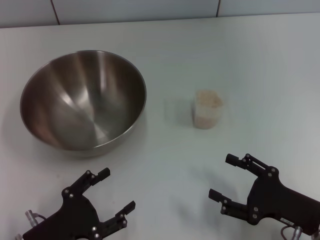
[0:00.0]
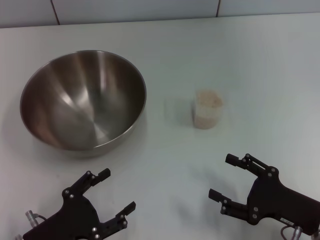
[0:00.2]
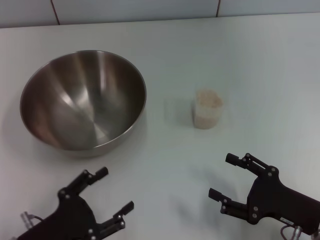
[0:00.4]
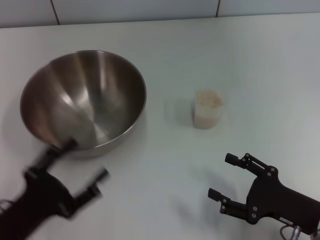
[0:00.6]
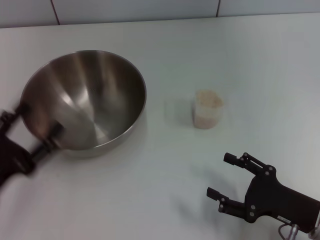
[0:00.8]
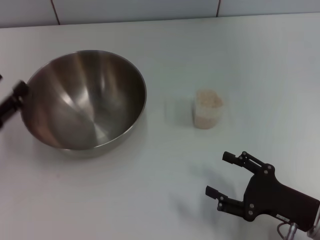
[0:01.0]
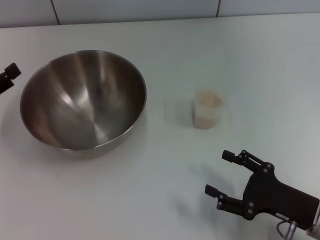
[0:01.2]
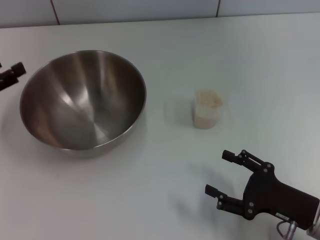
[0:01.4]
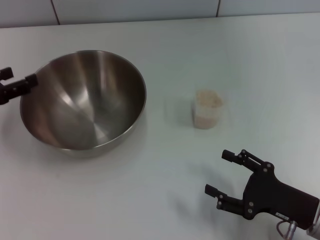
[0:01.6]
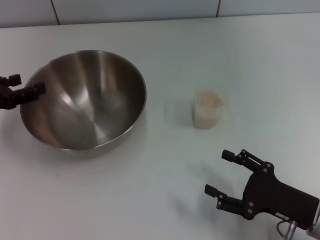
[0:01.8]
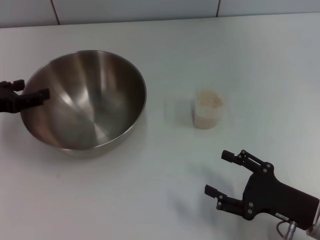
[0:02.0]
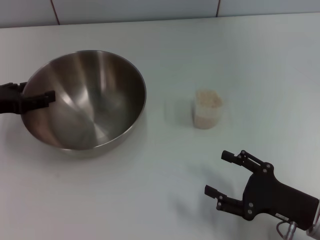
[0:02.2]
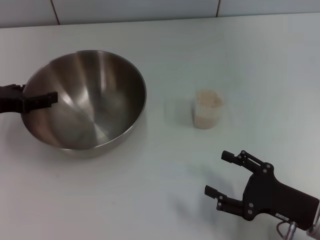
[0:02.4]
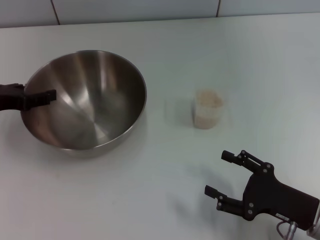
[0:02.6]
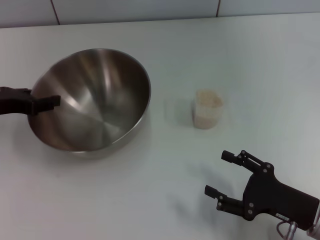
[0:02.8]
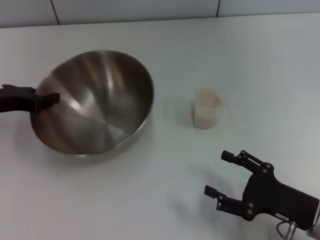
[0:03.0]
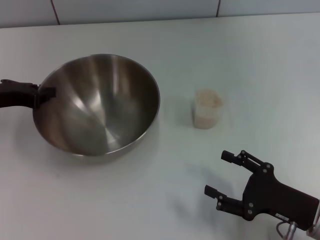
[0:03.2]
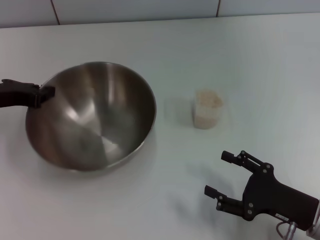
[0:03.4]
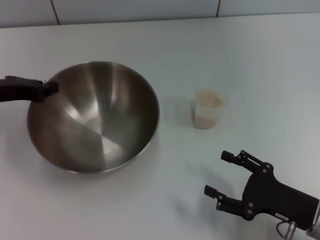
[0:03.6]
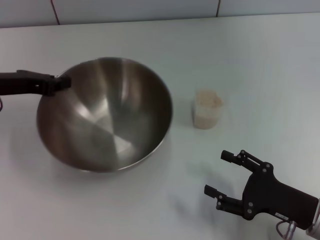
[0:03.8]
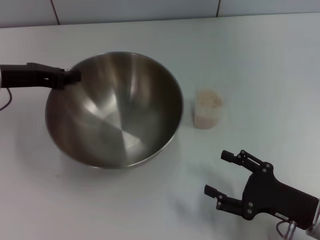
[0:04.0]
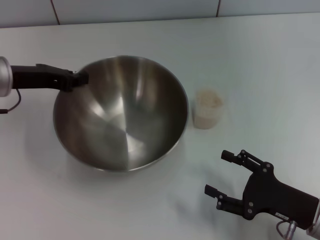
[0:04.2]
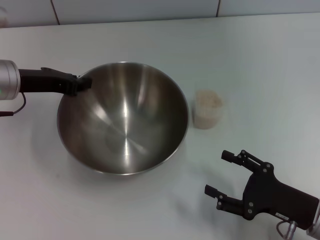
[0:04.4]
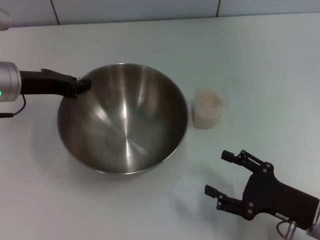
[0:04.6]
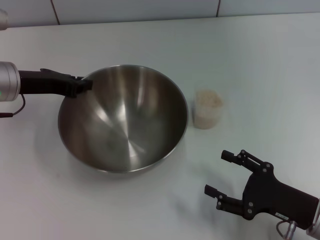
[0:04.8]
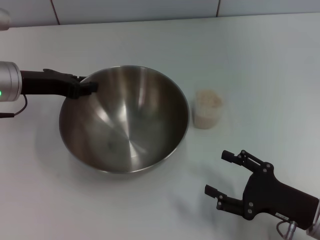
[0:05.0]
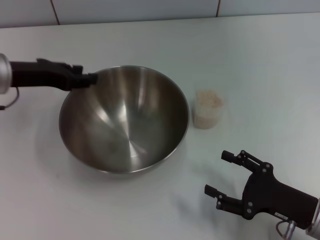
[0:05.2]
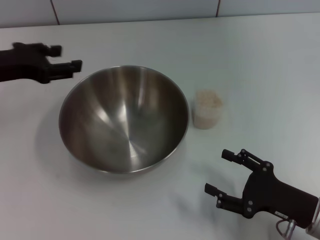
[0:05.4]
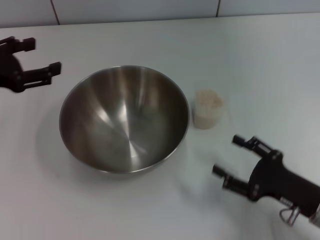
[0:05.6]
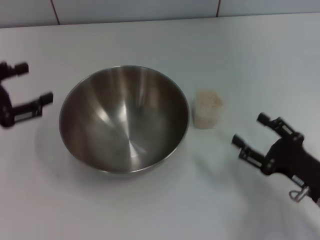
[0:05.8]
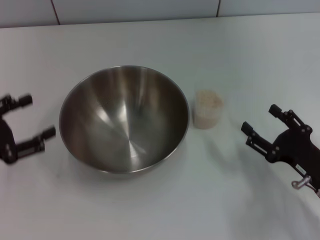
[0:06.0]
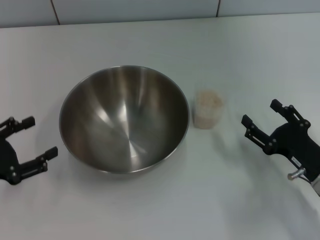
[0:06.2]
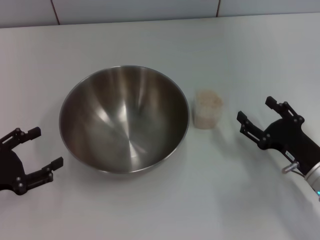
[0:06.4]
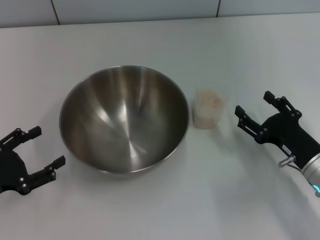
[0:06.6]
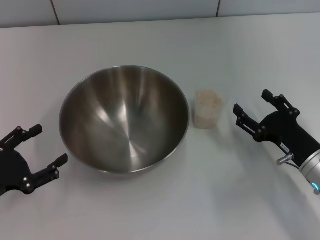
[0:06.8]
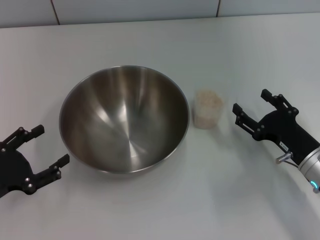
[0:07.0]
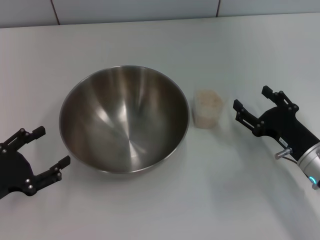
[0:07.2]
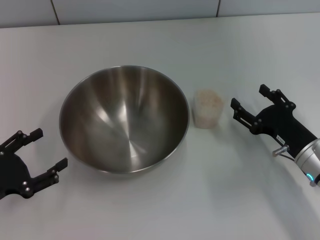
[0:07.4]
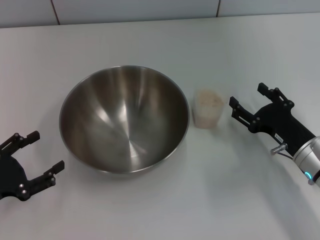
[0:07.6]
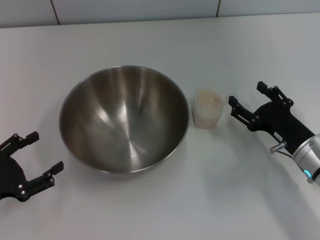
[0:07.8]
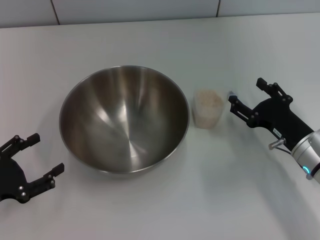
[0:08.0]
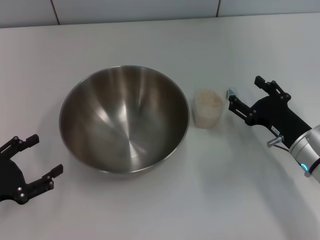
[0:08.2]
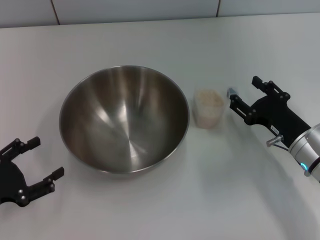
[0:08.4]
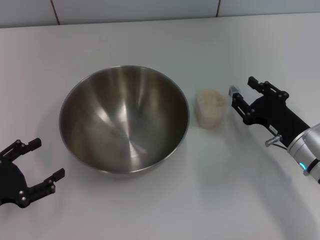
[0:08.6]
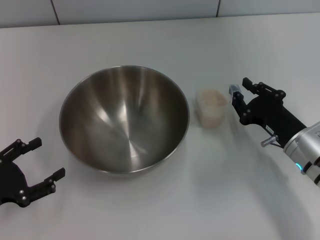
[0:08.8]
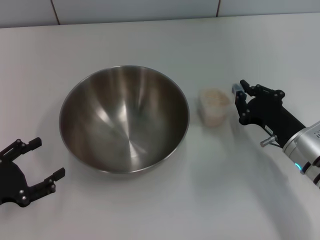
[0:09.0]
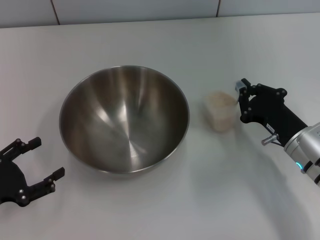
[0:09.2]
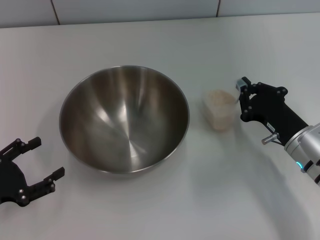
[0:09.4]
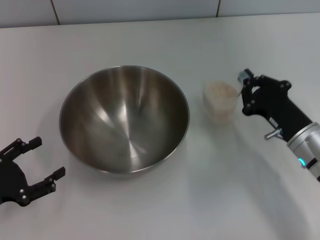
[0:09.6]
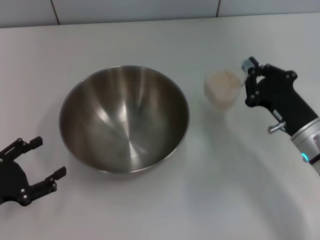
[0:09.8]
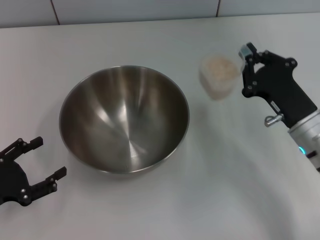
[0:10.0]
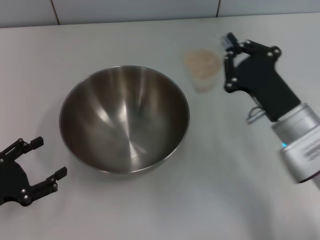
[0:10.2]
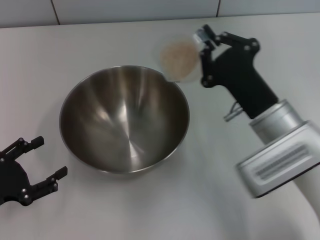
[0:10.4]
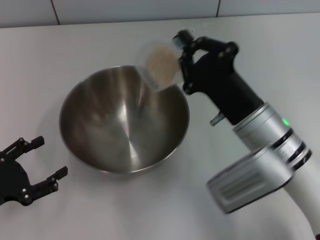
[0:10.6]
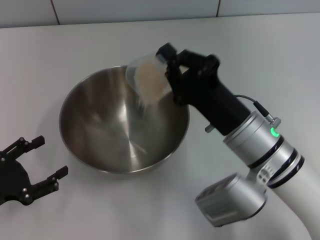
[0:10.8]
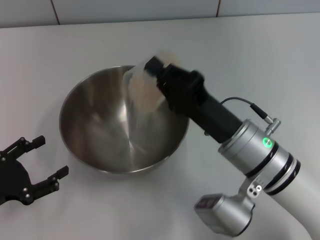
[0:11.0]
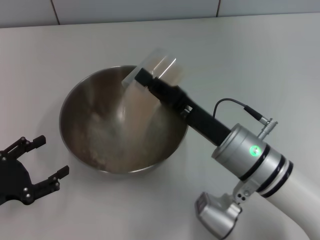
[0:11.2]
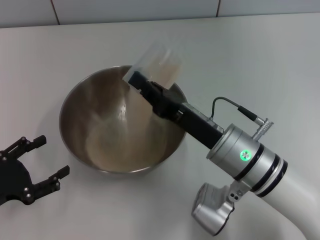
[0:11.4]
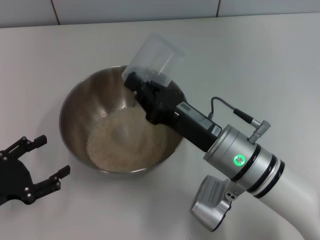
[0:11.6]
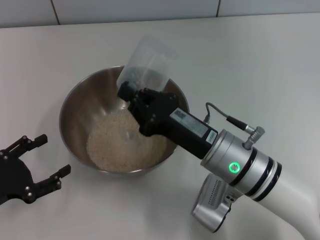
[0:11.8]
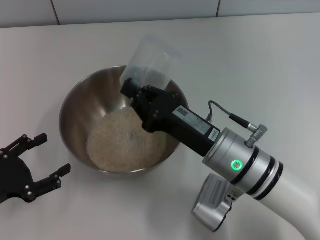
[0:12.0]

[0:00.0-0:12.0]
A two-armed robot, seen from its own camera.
Task of the whole recording: Place the bowl in the middle of the table with one hand and pour the rice from the grain cup into it with the other hand.
Step, 0.0 to 3.8 s: Pick up the bowl with the left gripper.
Step, 4.0 to 5.2 s: Place the bowl in the center of view with the left gripper.
Step, 5.4 to 9.8 s: Pick up the cup with rice in it with the right gripper.
0.0 to 1.6 s: The left gripper travels forward, upward and to the left by some 25 cm.
1.6 to 3.0 s: The left gripper changes place by some 5 cm, and closes its fingers.
3.0 to 4.4 s: The left gripper travels to the right by about 5 cm, and closes.
4.4 to 6.0 s: The left gripper is displaced backward and to the left by approximately 15 cm, and opens its fingers.
6.0 to 7.6 s: The left gripper goes approximately 5 cm downward; the right gripper is displaced forward by some 5 cm.
7.6 to 9.0 s: The right gripper closes its fingers.
9.0 to 10.4 s: The right gripper goes about 10 cm to the left and upward.
10.4 to 12.0 s: The right gripper moves to the left, some 5 cm.

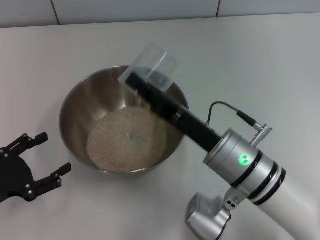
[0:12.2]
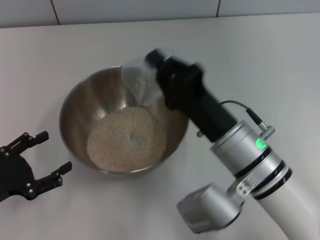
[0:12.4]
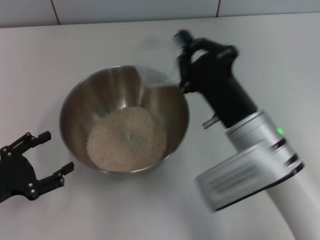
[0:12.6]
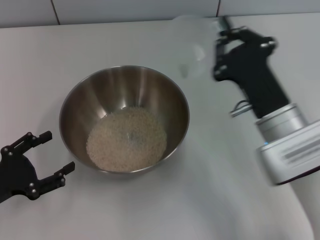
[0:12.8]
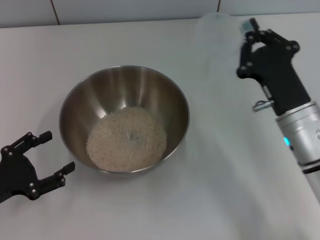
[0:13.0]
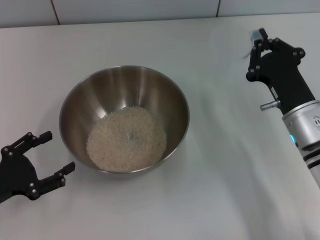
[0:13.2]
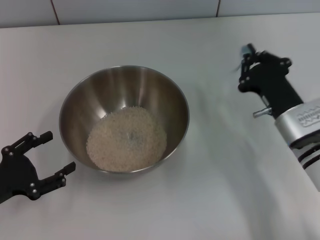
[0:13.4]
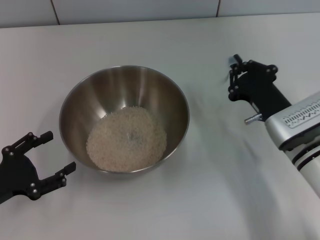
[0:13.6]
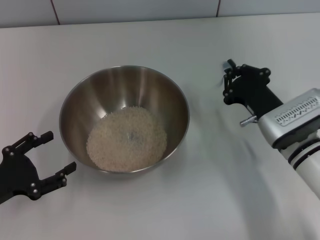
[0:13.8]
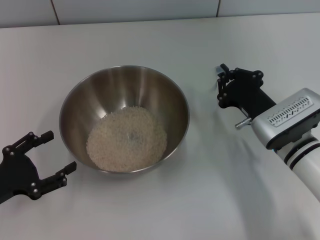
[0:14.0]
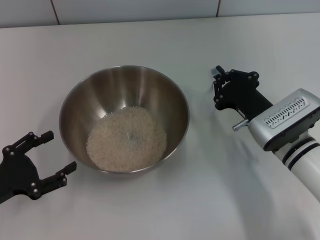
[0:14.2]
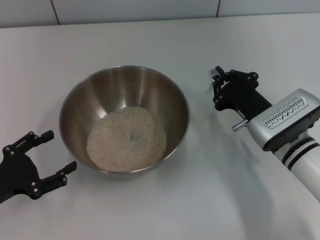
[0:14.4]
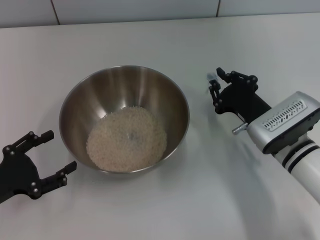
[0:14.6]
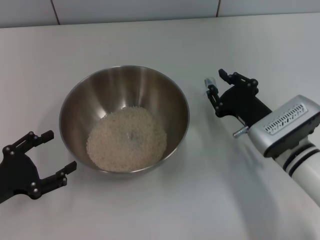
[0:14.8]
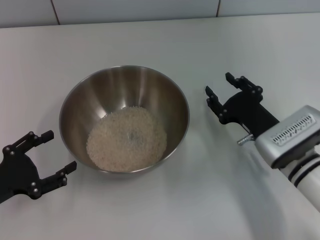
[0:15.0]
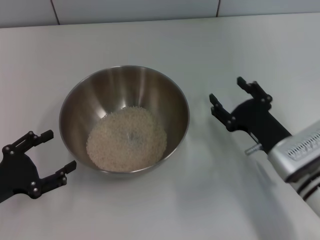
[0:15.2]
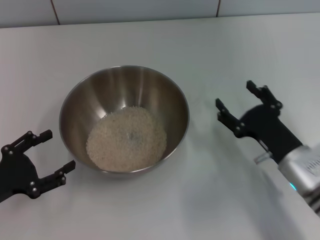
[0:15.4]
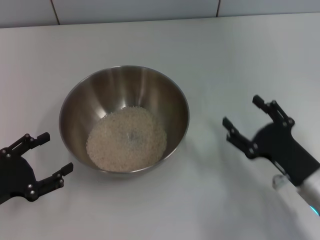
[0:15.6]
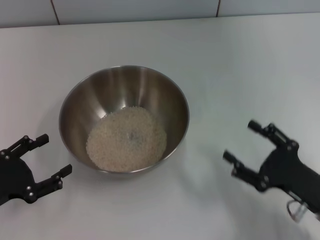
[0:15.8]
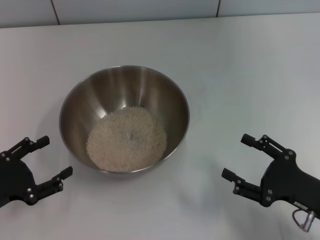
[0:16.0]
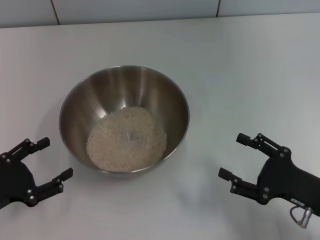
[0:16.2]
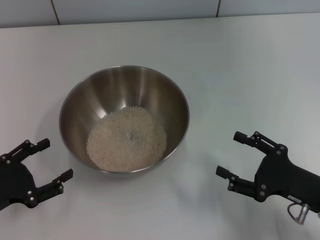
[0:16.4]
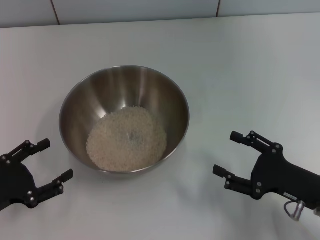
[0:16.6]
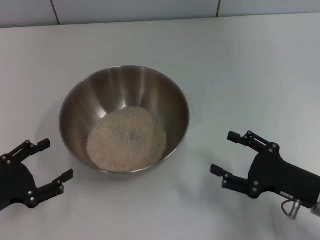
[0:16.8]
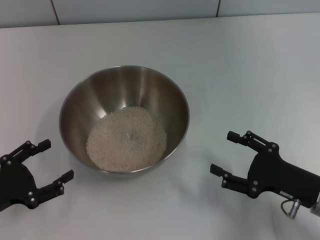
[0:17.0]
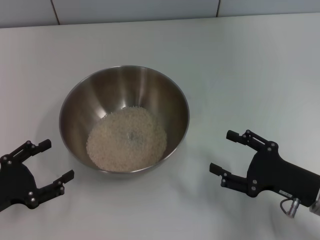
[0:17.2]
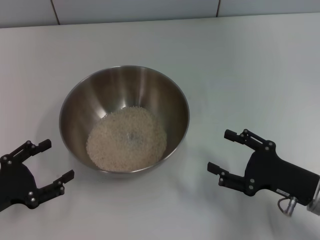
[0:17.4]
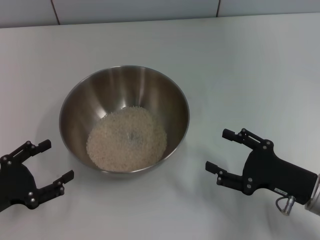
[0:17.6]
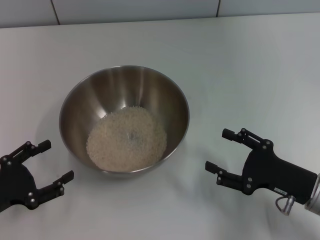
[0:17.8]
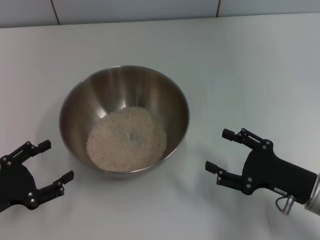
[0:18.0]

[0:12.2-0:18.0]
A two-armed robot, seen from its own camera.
Task of the whole recording: Place the bowl in the middle of the table with one hand and pour the rice from the grain cup into it with the other hand.
Step, 13.0 to 15.2 s: Place the cup on the table with the right gripper.
12.2 to 13.6 s: The right gripper shifts some 10 cm to the right and forward.
13.6 to 15.0 s: The right gripper opens.
15.0 to 16.6 s: The right gripper goes roughly 10 cm backward and to the right, and opens its fingers.
16.6 to 18.0 s: The grippers move only a little.

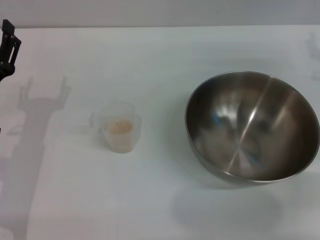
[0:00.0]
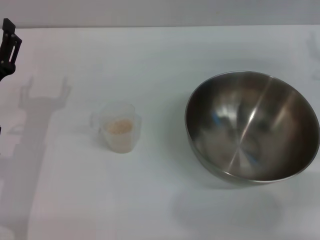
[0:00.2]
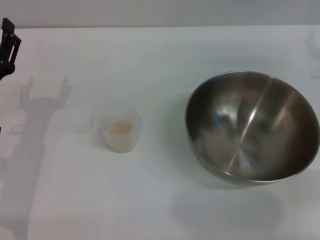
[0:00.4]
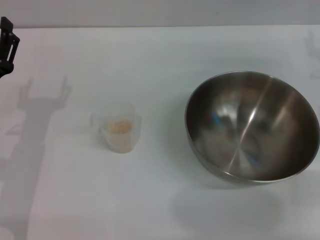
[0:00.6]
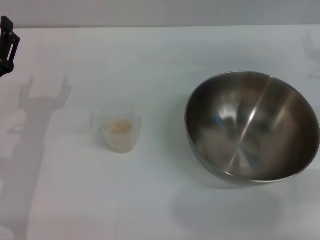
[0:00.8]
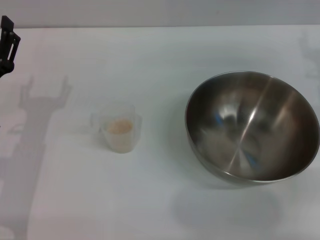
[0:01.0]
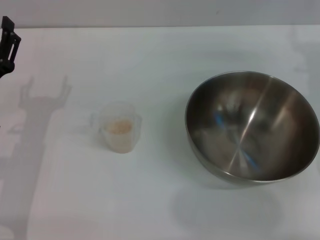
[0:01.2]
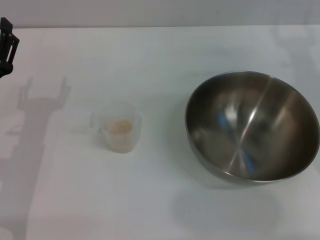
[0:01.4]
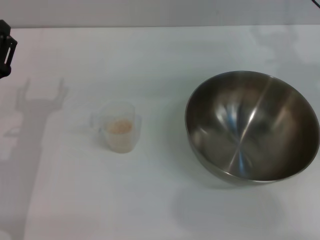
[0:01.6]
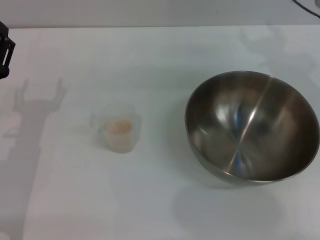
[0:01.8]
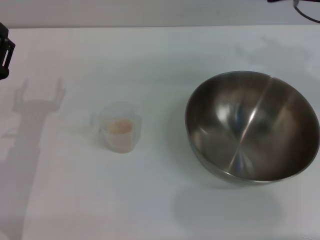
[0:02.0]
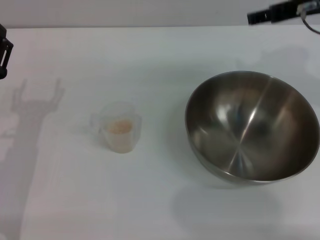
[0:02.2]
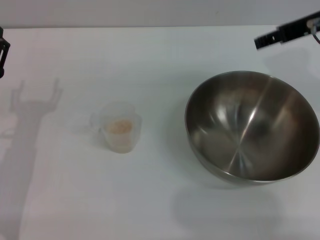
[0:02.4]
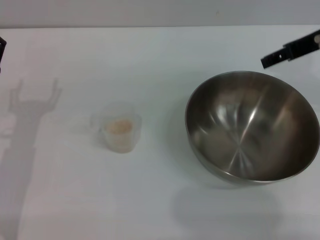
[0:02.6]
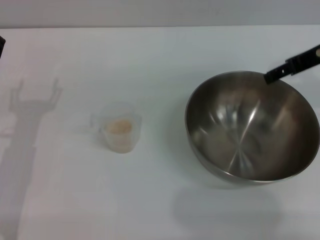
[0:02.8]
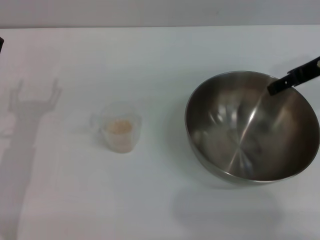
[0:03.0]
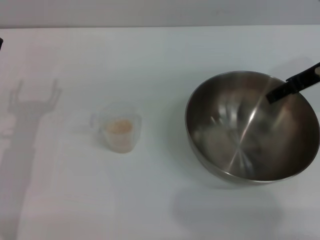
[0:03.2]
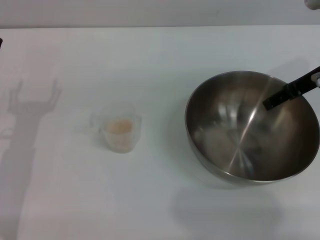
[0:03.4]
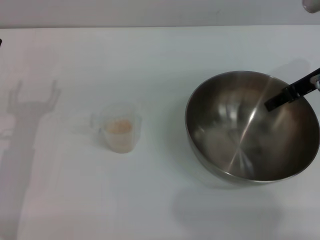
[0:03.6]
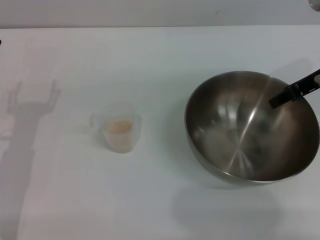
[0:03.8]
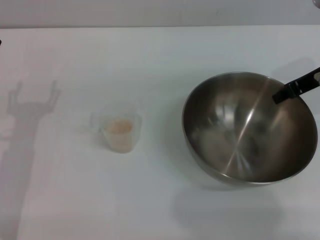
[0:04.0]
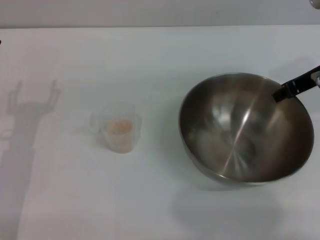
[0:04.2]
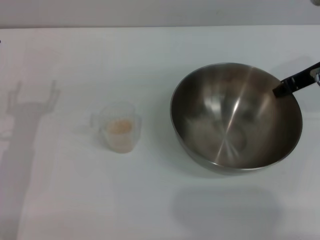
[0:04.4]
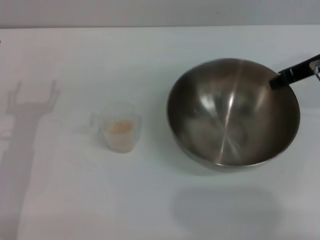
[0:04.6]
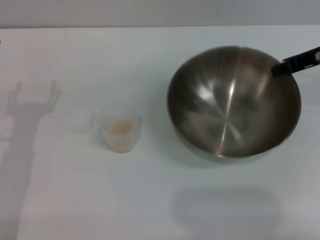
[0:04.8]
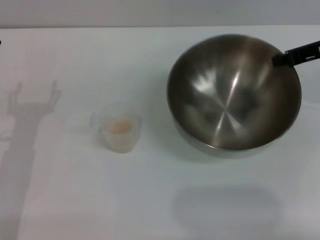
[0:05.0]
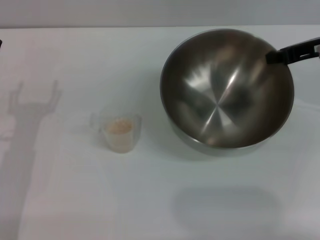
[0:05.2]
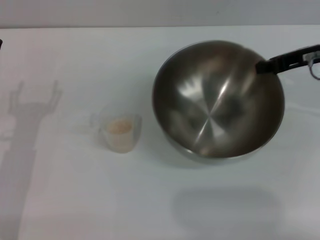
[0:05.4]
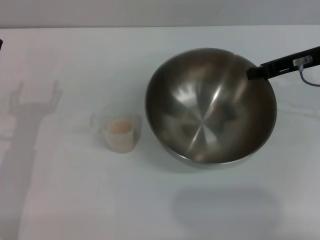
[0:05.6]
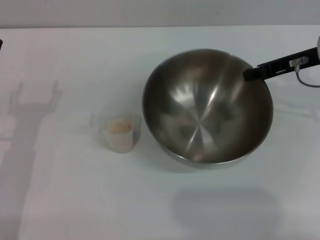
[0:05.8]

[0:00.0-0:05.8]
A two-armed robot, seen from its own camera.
Task of the whole recording: Place the bowl in the middle of the table with one hand and pour the rice from the grain cup into it with the other hand.
Step, 0.0 to 5.0 s: Pick up the bowl with the right gripper.
0.0 to 1.4 s: The right gripper moves roughly 5 cm.
1.4 to 2.8 s: The right gripper is displaced upward by some 5 cm.
2.8 to 4.4 s: The right gripper closes up.
4.4 to 5.8 s: The grippers make only small movements.
